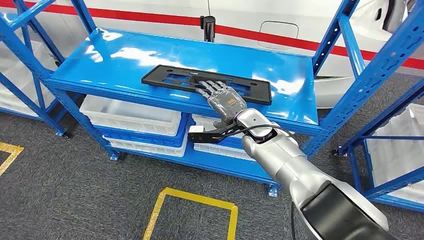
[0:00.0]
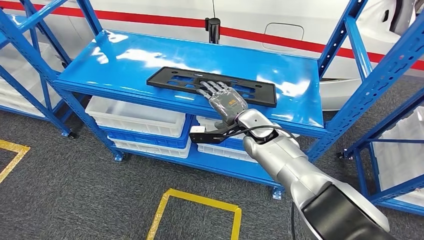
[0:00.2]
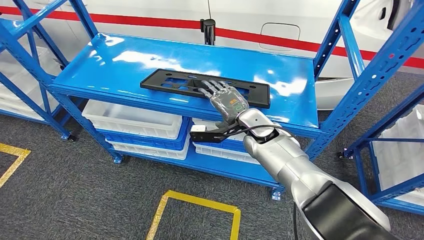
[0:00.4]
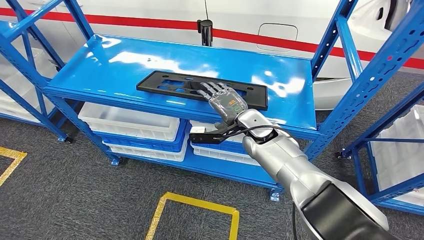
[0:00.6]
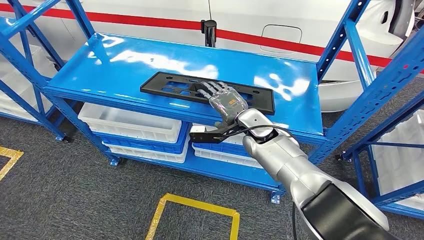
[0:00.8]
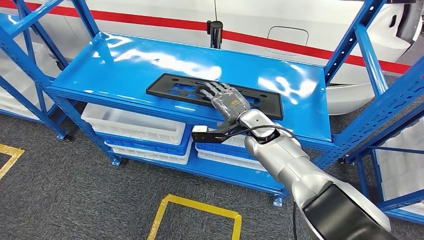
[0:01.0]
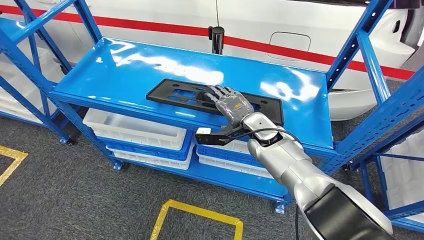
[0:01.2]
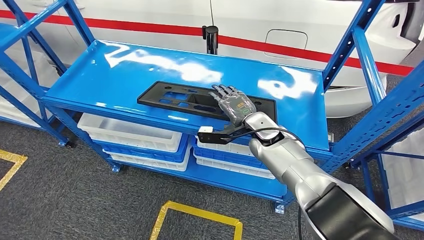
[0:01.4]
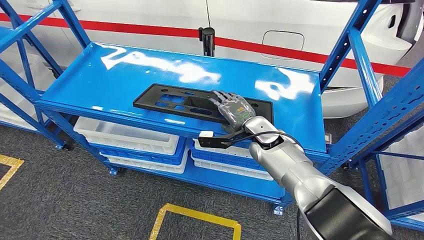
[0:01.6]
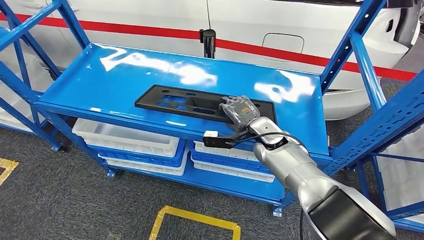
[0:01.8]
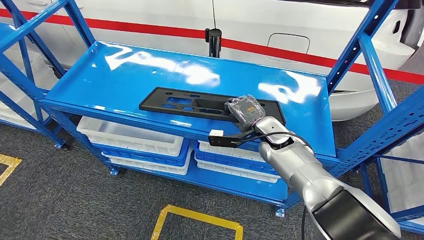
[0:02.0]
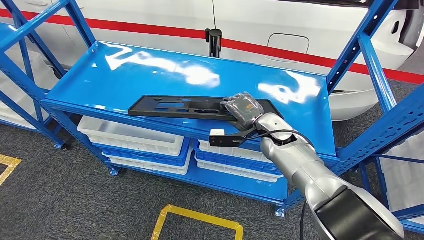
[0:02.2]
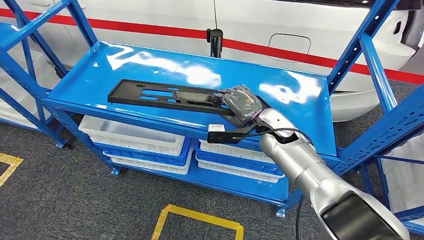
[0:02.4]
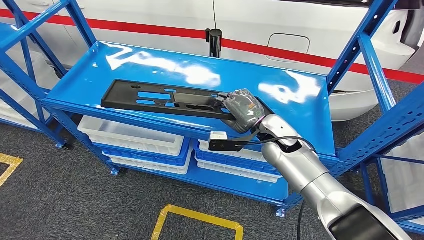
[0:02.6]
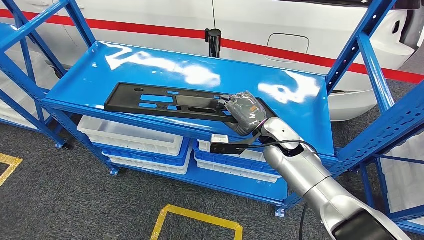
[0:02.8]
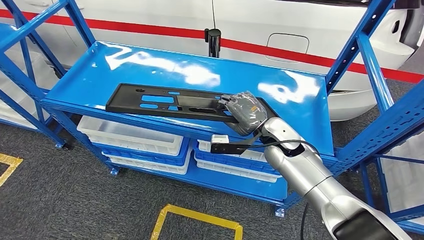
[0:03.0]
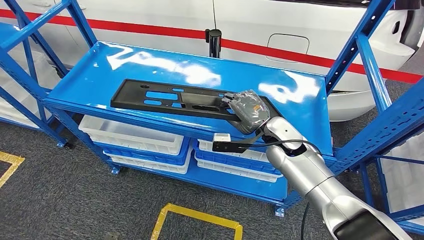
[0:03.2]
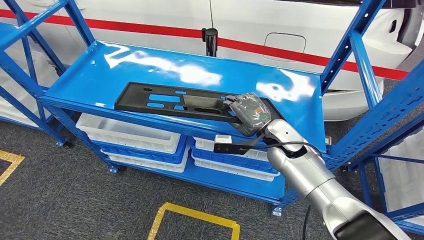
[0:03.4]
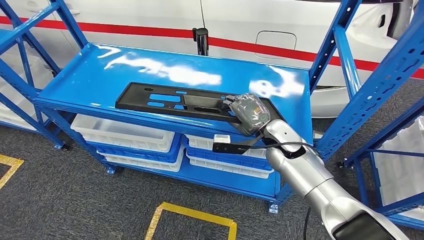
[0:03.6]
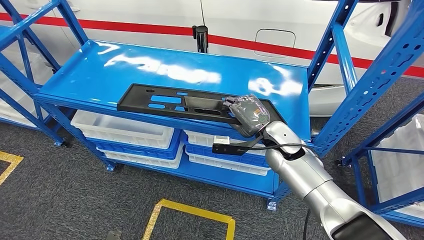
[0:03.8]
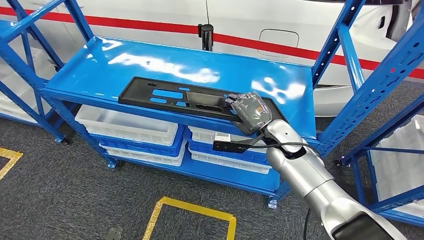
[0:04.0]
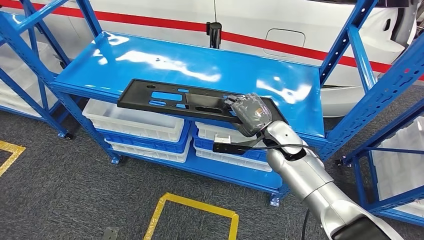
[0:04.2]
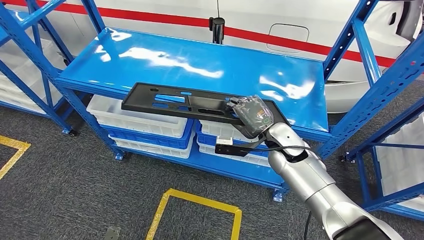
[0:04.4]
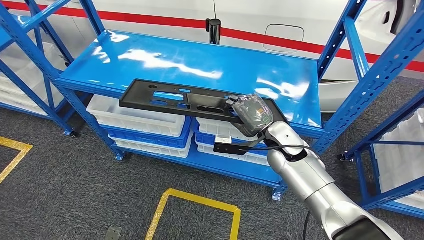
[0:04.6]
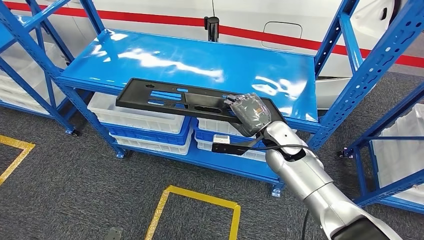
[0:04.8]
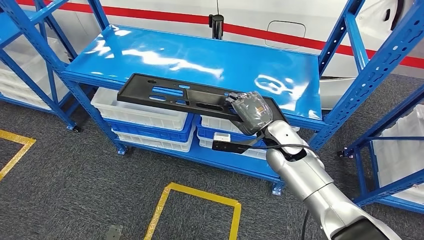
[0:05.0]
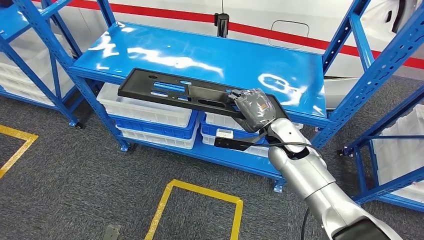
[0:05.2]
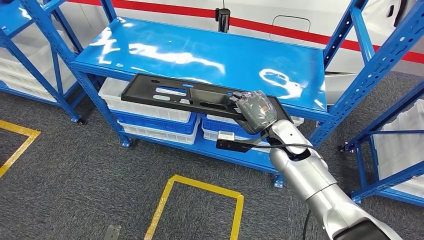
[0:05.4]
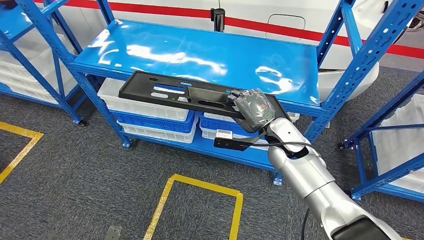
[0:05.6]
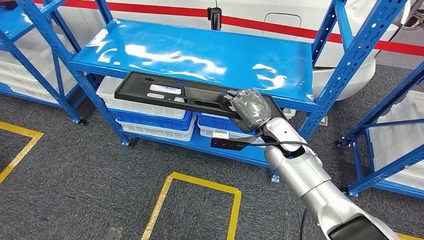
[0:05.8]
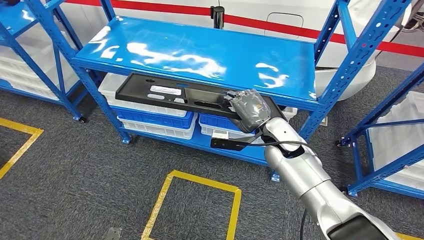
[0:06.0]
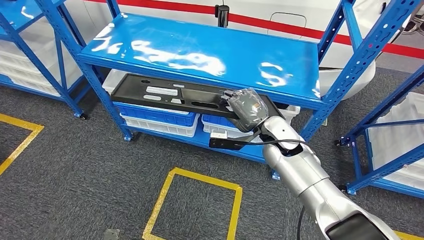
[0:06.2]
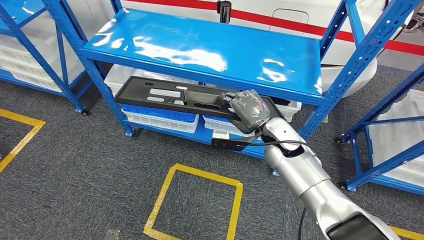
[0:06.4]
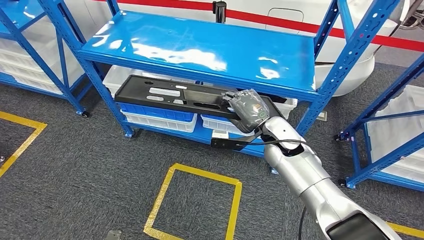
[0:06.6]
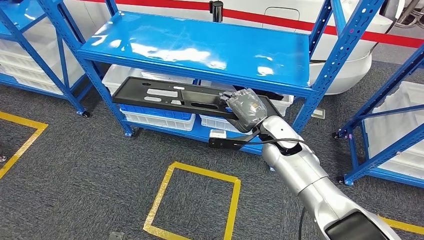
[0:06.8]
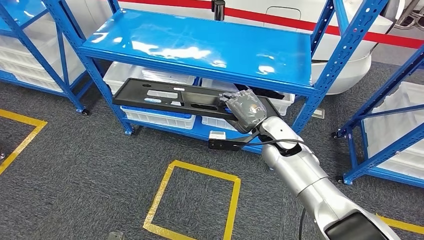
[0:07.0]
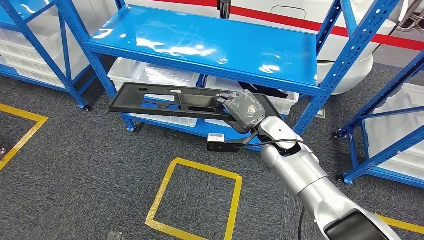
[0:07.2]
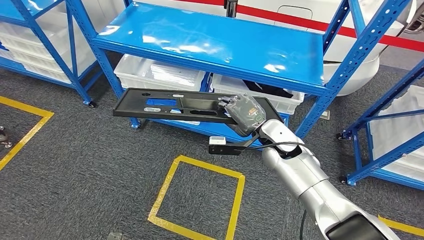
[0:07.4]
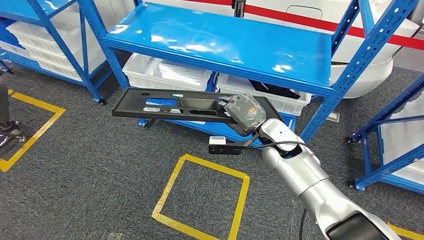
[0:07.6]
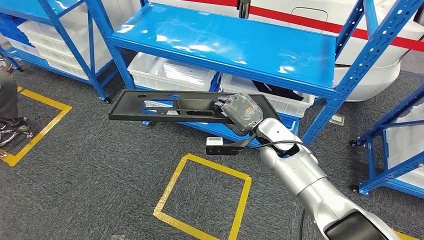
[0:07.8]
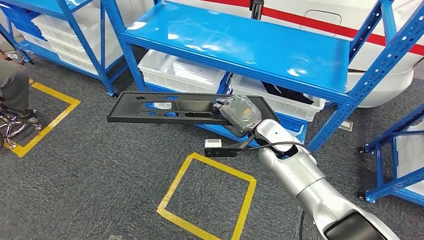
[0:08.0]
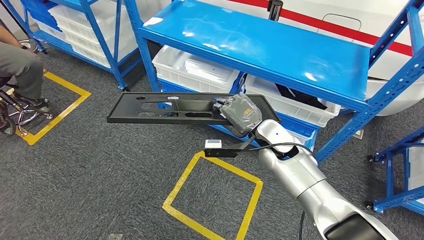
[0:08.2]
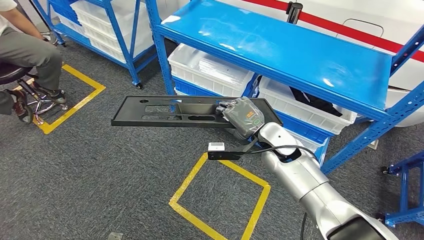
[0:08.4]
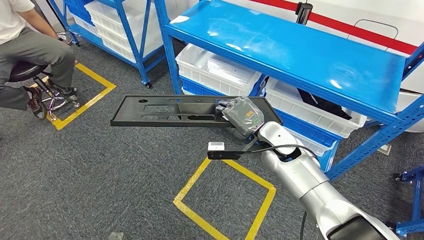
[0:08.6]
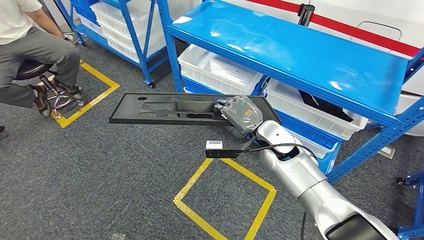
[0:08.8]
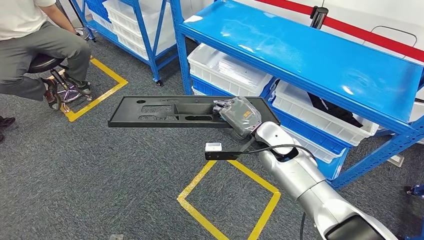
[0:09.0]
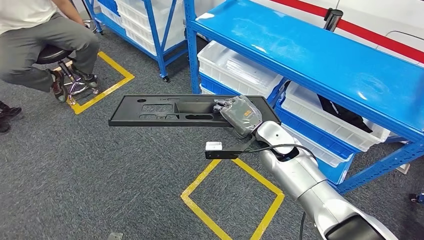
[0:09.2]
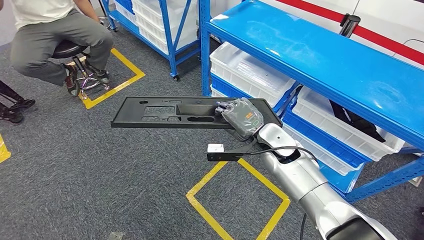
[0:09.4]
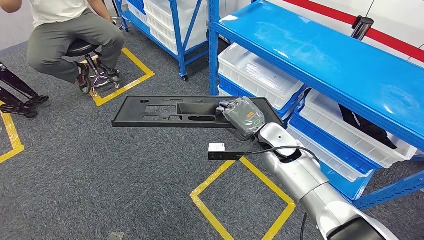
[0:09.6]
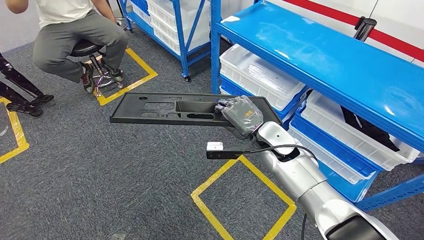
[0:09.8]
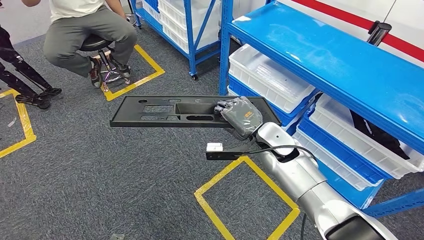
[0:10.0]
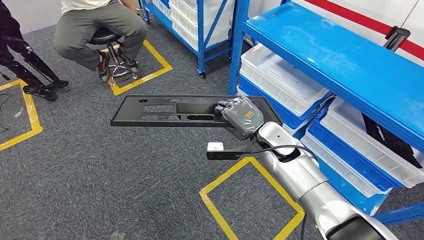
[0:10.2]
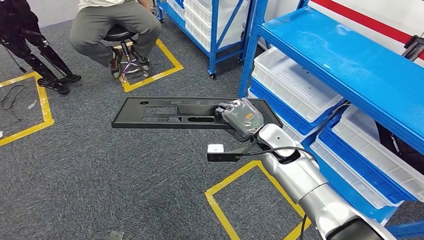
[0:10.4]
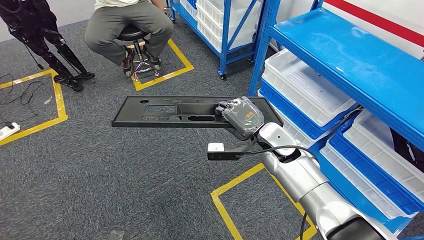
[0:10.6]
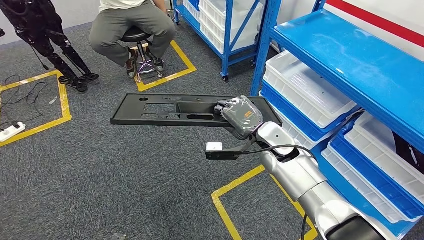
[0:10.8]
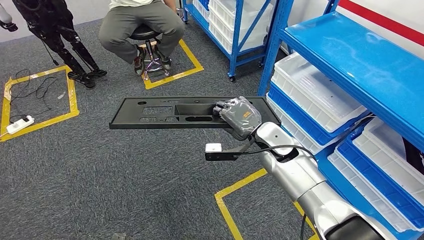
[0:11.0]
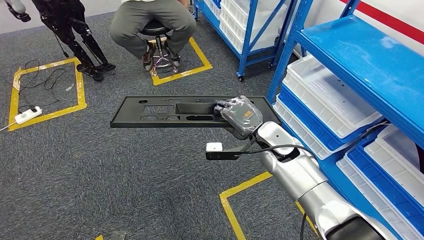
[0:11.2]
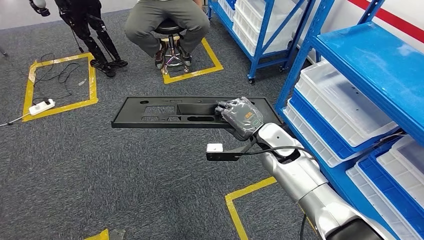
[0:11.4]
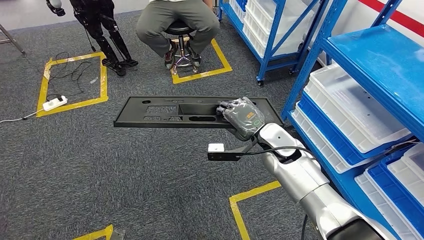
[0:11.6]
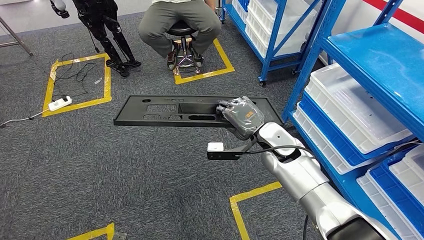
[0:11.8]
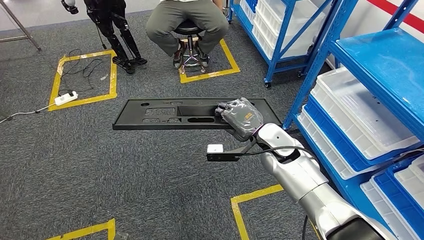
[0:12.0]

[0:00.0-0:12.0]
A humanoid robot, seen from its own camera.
Step, 0:00.0 to 0:06.4: Pick up the large material from the shelf.

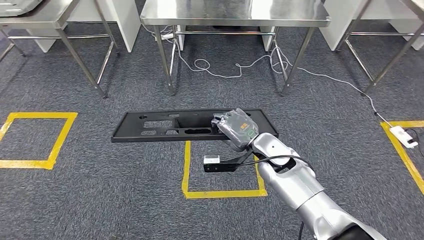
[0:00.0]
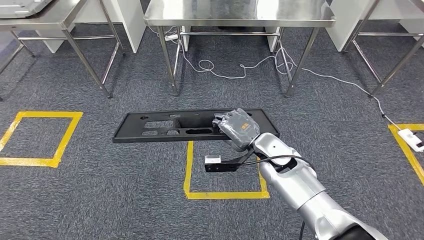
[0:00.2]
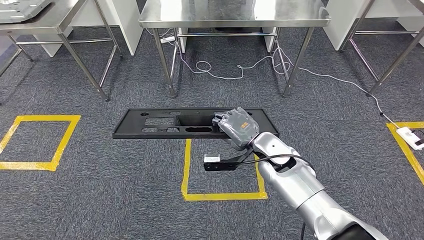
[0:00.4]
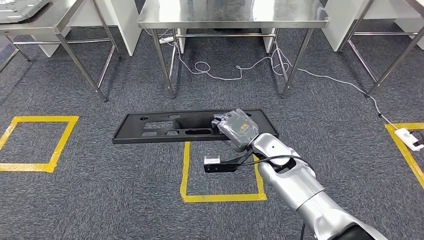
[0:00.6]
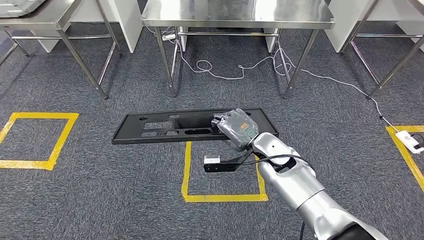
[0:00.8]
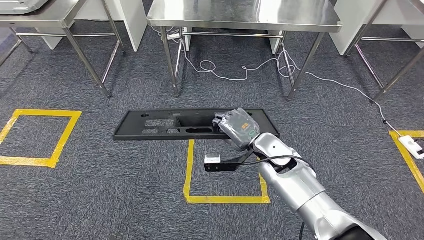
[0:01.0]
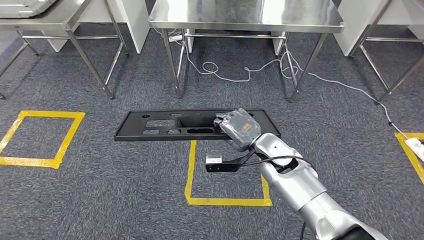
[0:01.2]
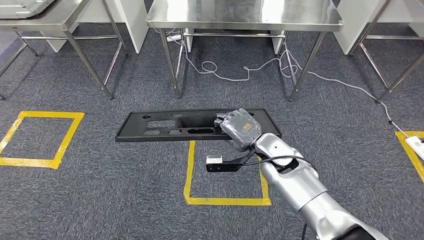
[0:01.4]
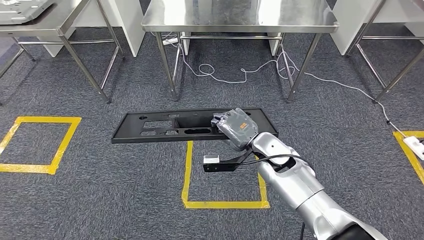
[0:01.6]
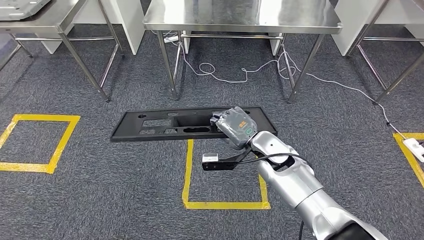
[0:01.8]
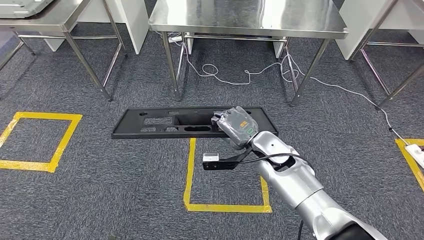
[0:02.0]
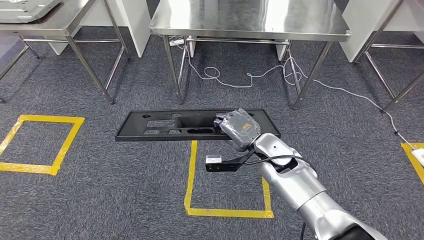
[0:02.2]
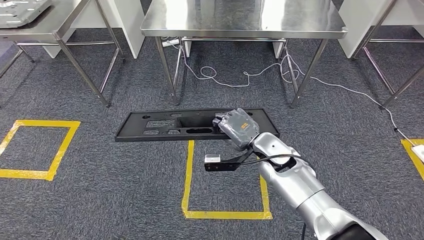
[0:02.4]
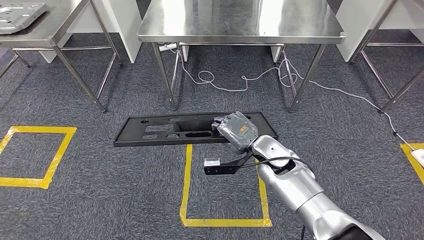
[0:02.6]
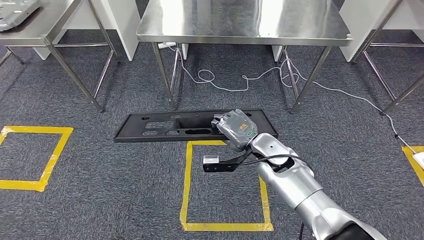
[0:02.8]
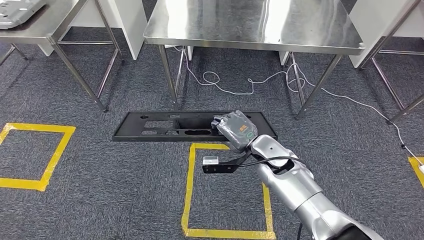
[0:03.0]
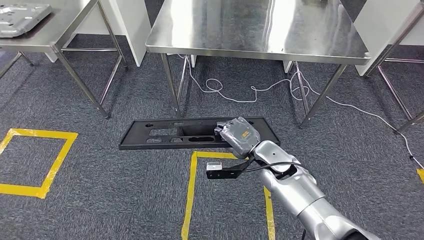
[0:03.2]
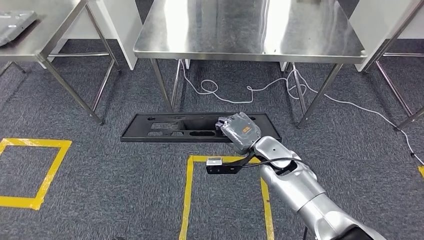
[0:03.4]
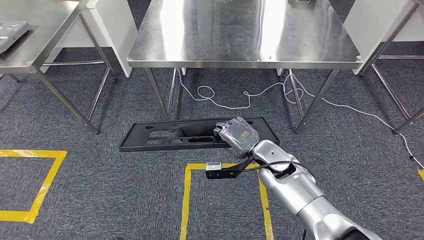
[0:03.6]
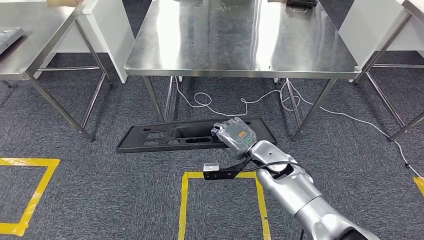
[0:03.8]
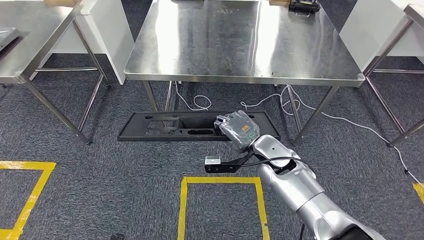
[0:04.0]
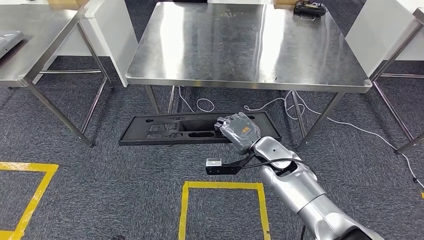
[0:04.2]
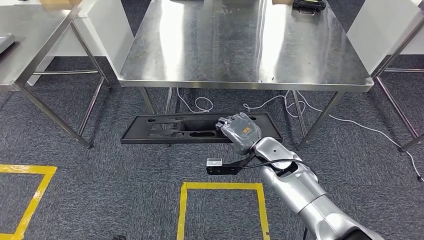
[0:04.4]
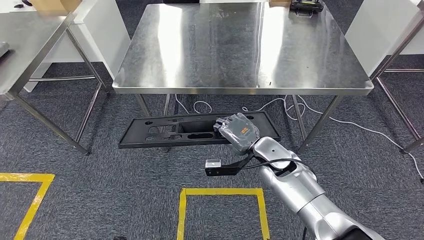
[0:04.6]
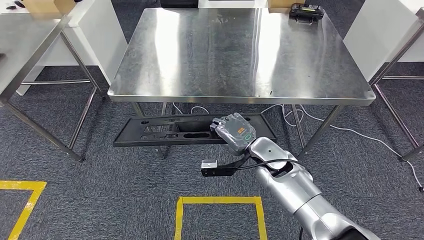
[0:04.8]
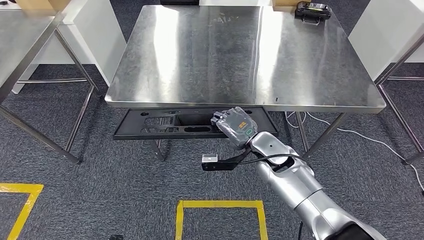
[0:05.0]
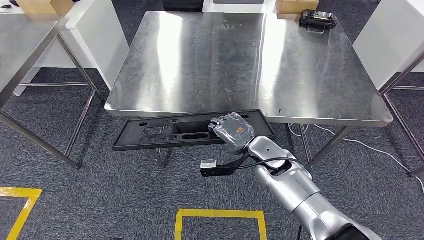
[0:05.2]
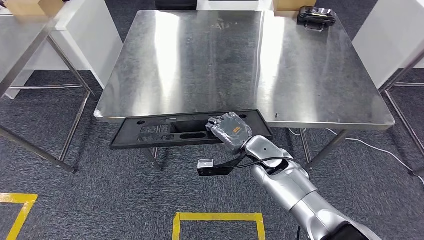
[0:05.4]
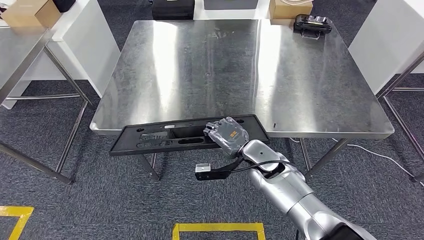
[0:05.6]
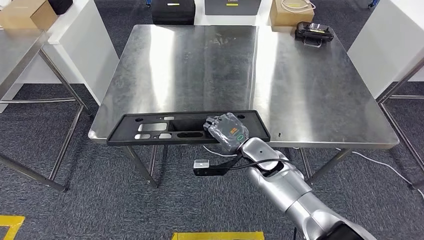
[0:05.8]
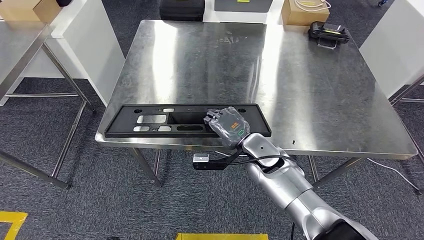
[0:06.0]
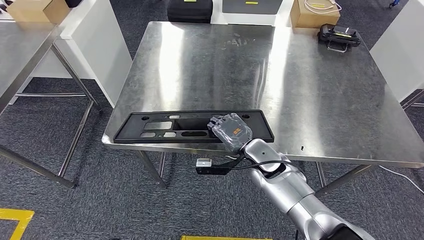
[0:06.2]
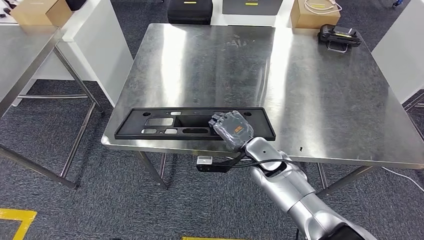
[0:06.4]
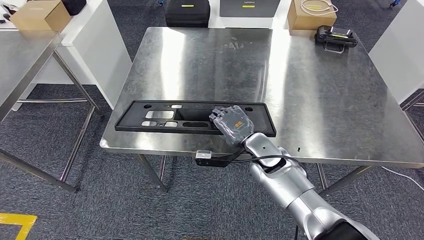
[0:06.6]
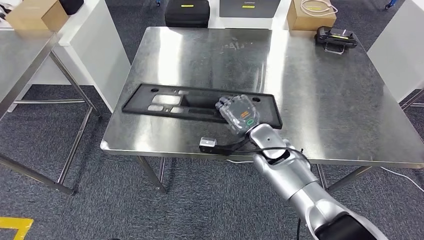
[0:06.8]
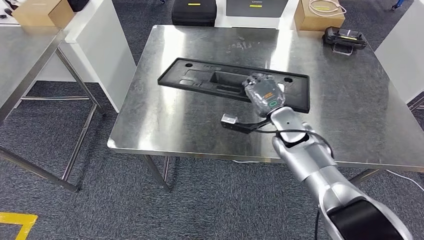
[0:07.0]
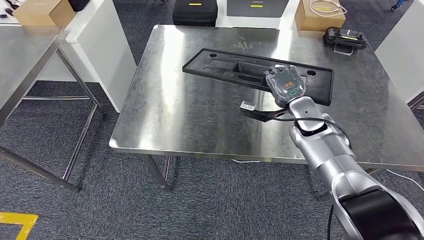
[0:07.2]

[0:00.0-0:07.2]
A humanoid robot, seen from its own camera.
Step, 0:00.0 to 0:04.0: Move the large material to the workbench.
